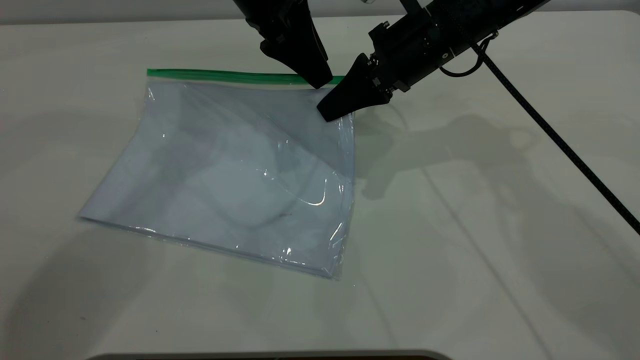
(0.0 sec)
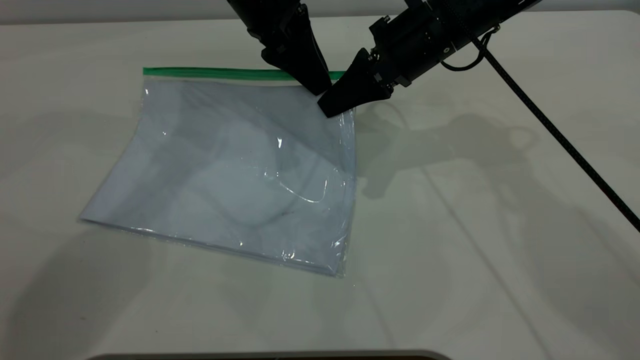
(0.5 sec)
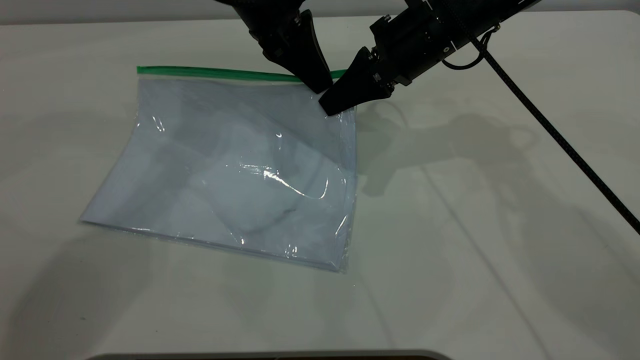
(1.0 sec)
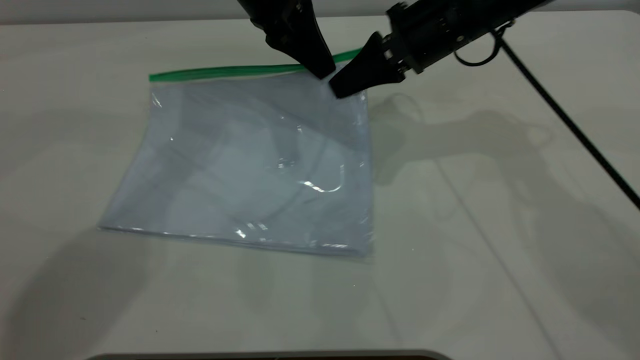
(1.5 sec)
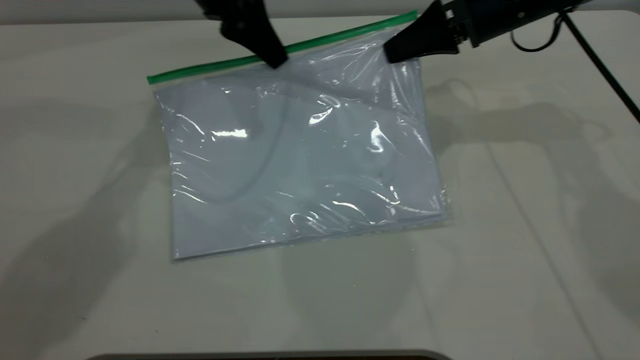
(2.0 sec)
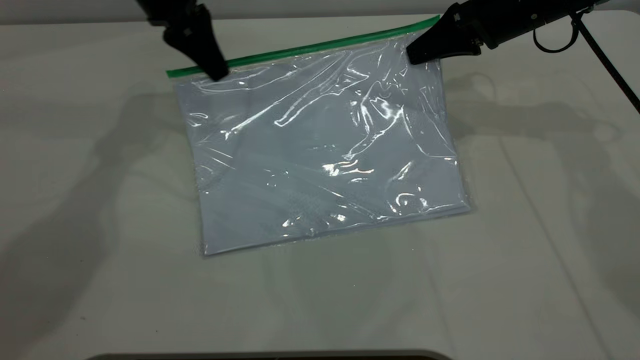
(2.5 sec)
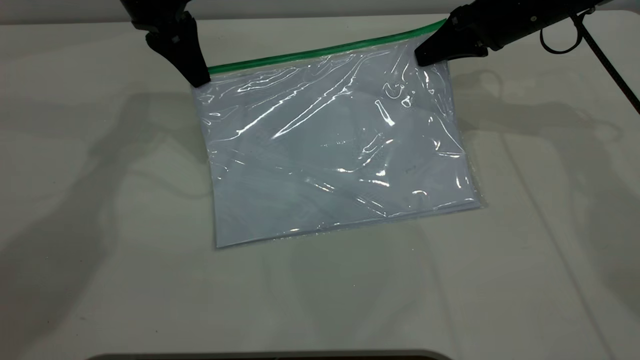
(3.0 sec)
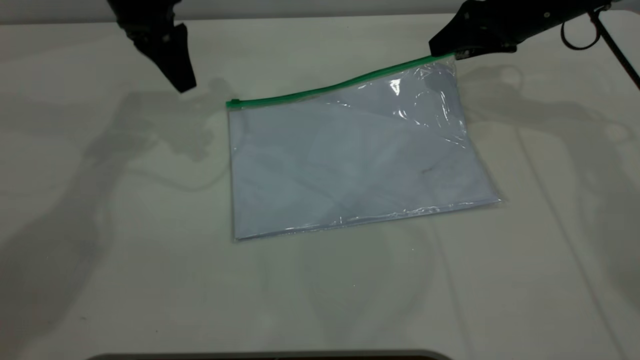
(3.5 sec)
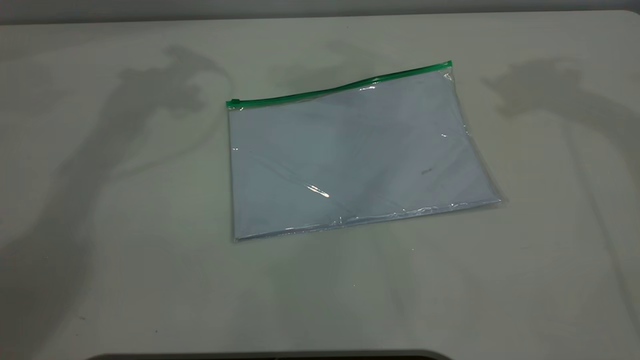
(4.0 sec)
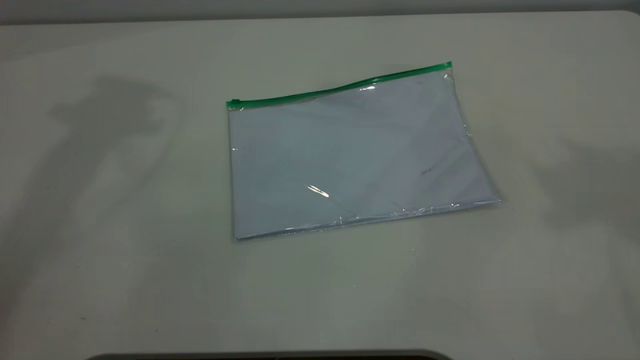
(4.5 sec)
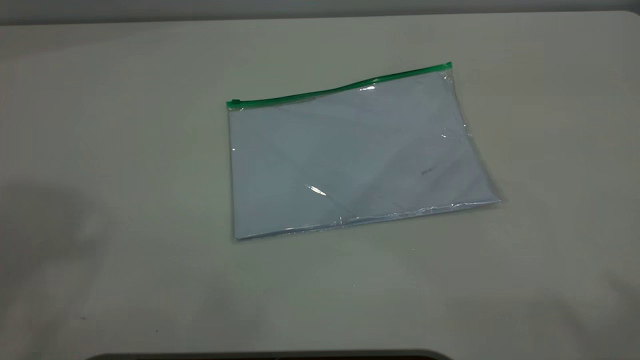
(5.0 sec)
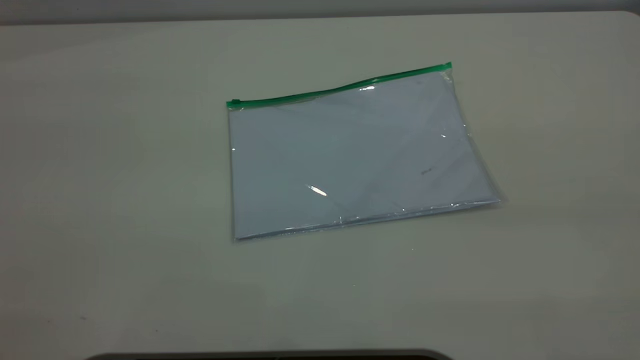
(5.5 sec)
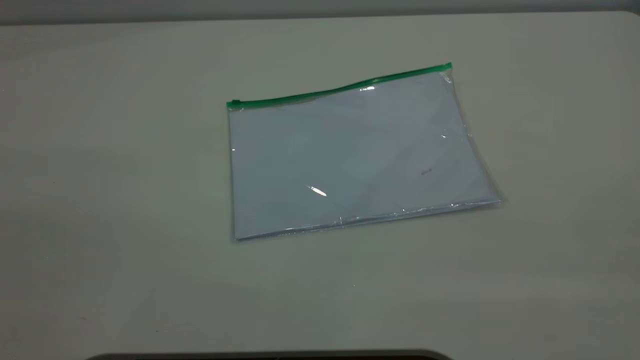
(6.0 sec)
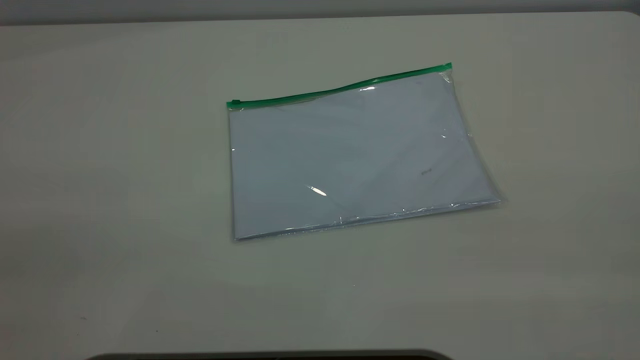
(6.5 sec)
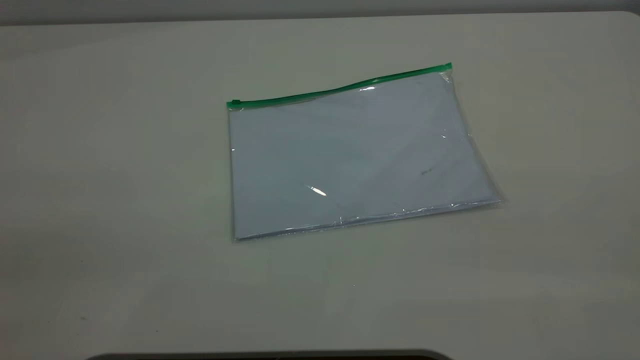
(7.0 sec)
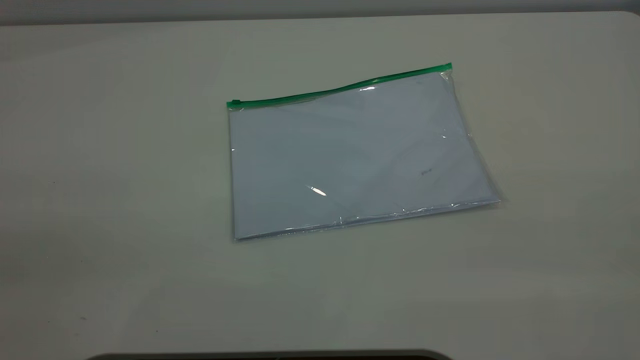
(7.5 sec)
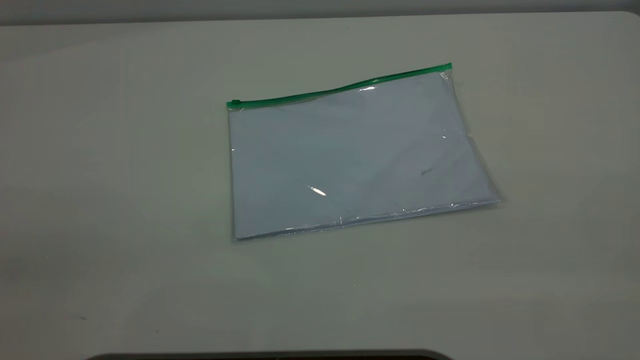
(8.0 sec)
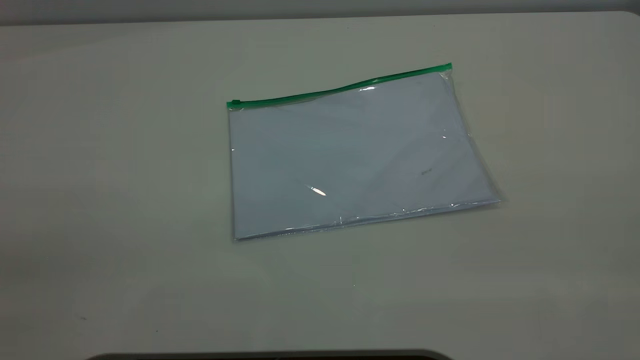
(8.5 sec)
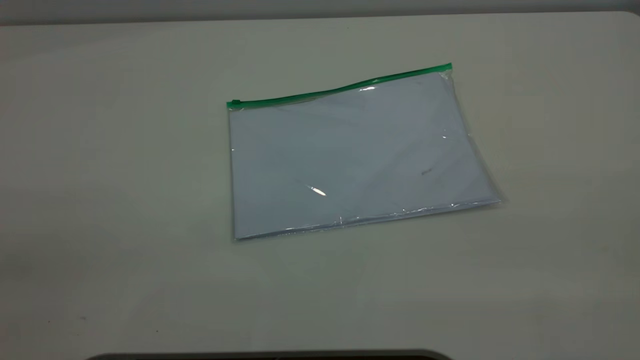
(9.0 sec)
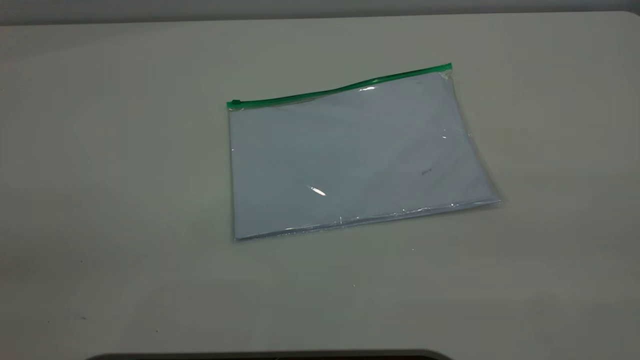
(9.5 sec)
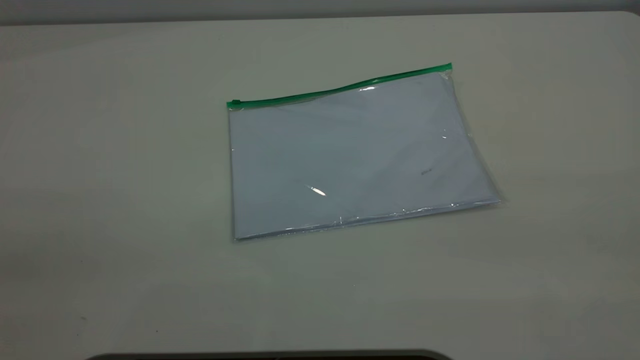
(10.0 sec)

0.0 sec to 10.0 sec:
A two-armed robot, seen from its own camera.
Step, 0.0 sec to 3.0 sec: Pulling up the zipper on the transparent plastic bag with the right gripper to close it.
0.0 sec to 2.0 sec: The right gripper heads to the right, covering some 10 cm, while the left gripper goes about 5 cm to the left, and closes.
2.0 sec to 4.0 sec: The left gripper is displaced upward and to the left by approximately 20 cm, and opens up, while the right gripper is displaced upward and to the right by about 25 cm, and opens its fingers.
